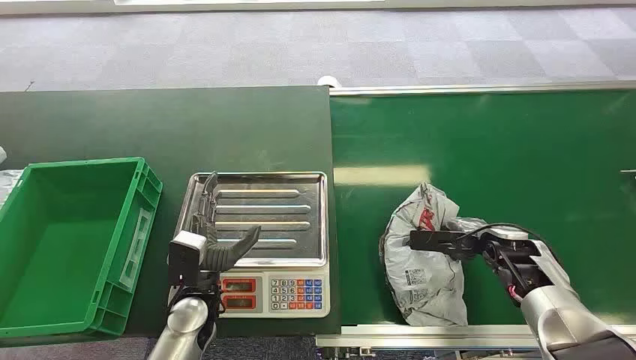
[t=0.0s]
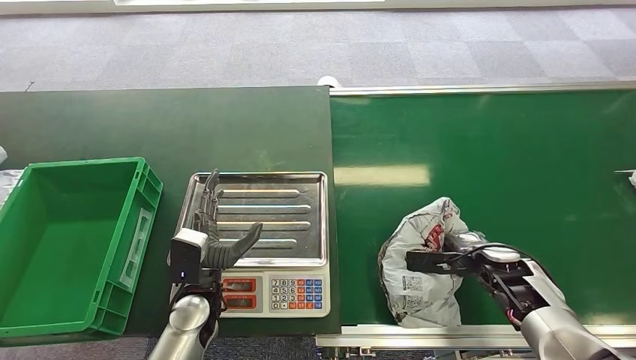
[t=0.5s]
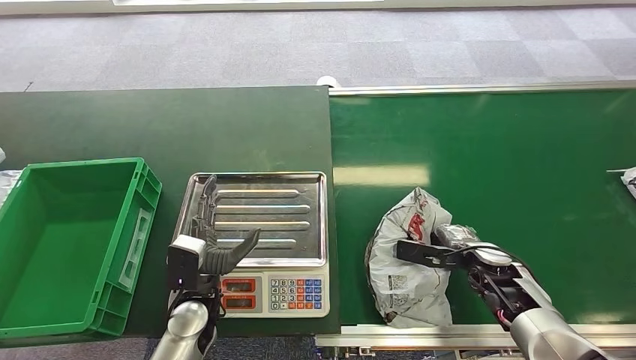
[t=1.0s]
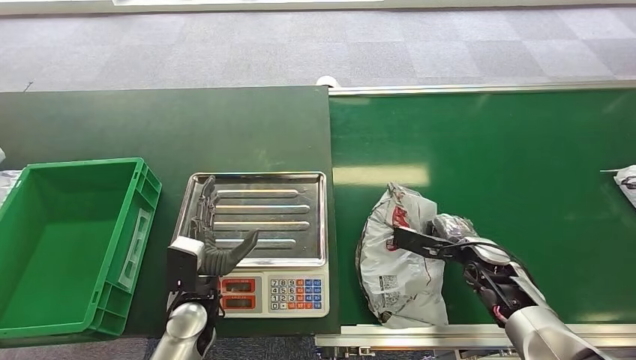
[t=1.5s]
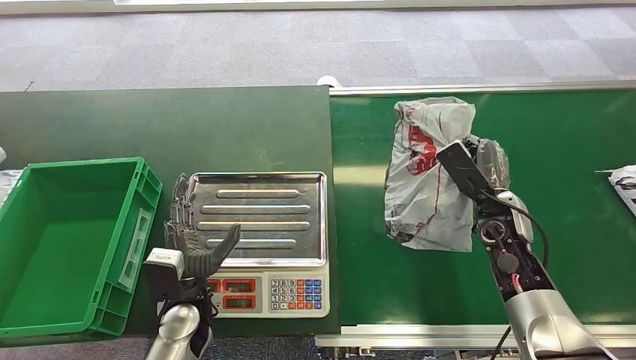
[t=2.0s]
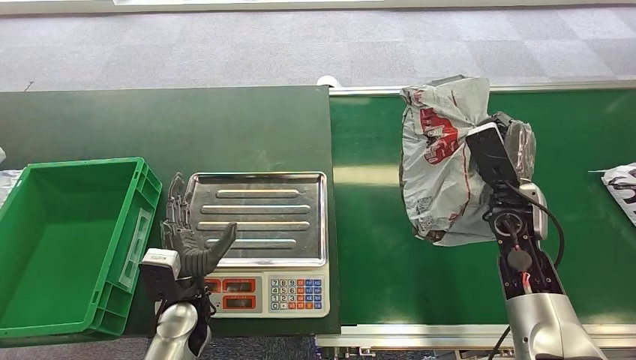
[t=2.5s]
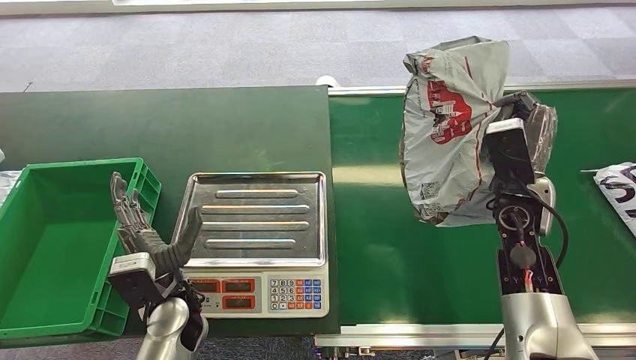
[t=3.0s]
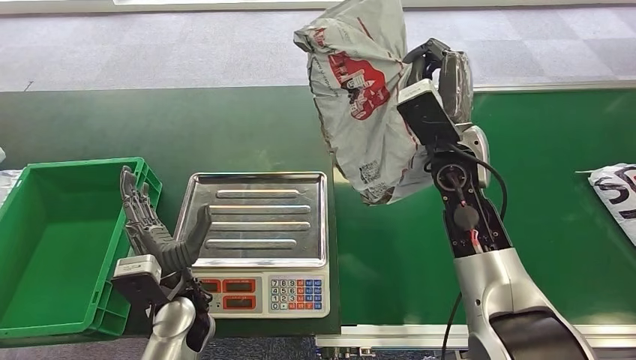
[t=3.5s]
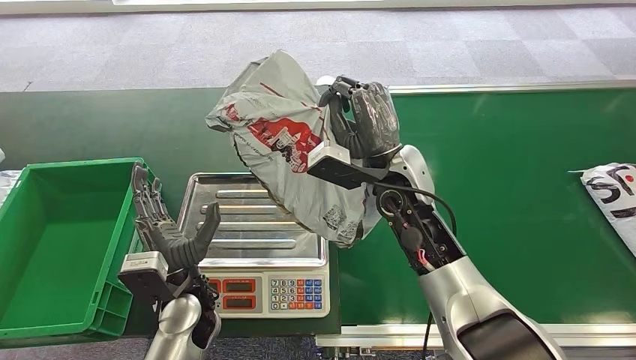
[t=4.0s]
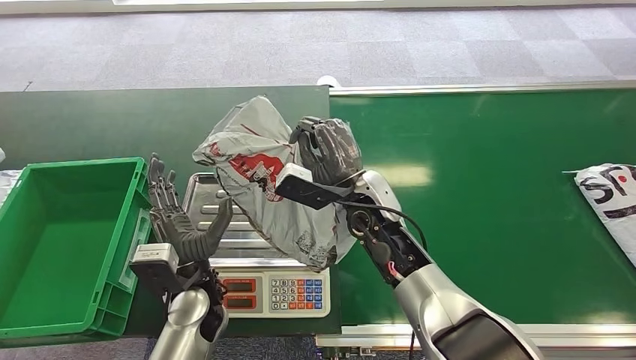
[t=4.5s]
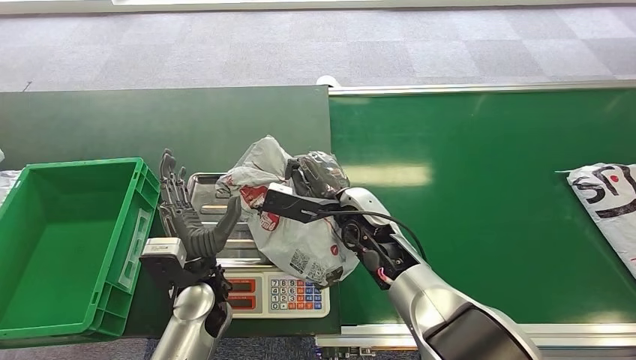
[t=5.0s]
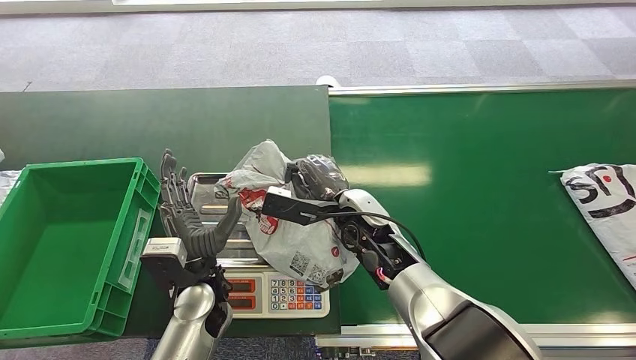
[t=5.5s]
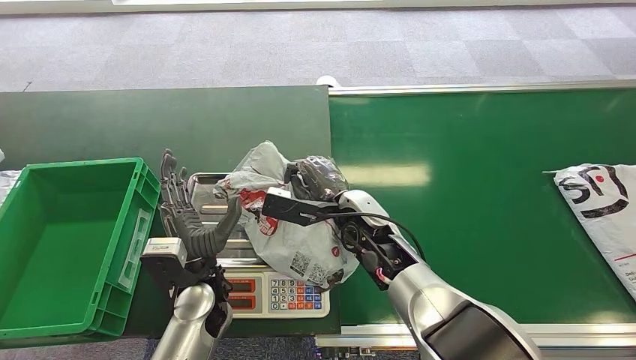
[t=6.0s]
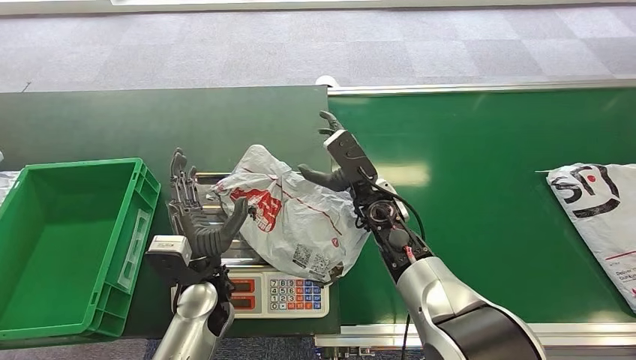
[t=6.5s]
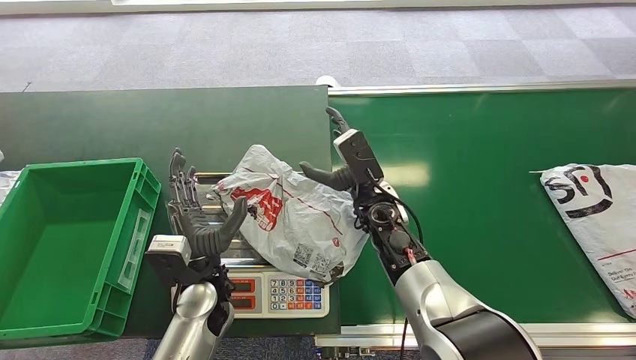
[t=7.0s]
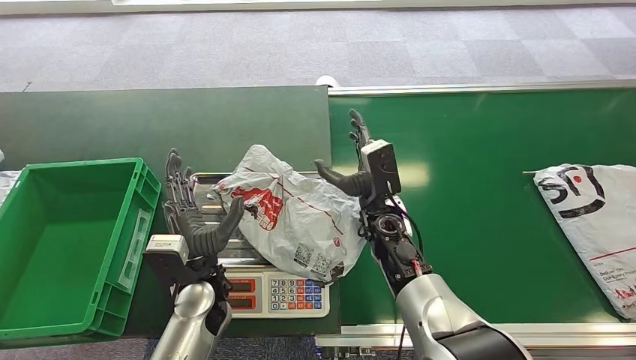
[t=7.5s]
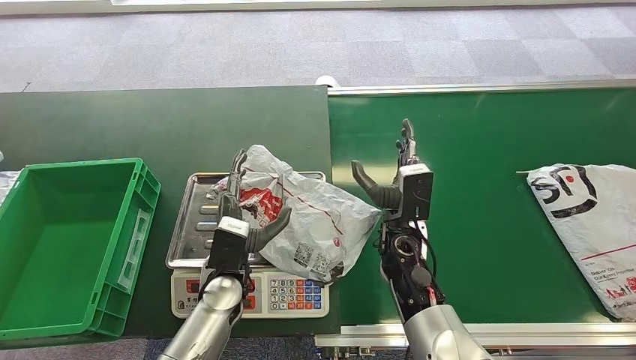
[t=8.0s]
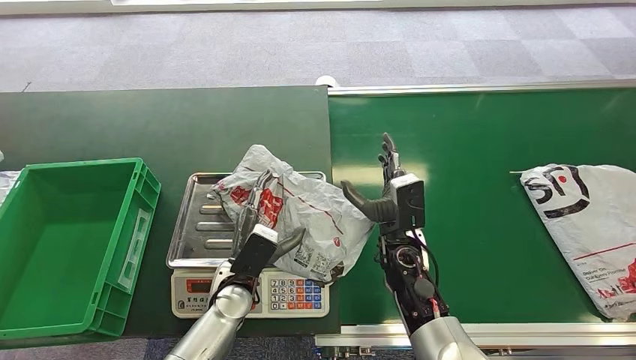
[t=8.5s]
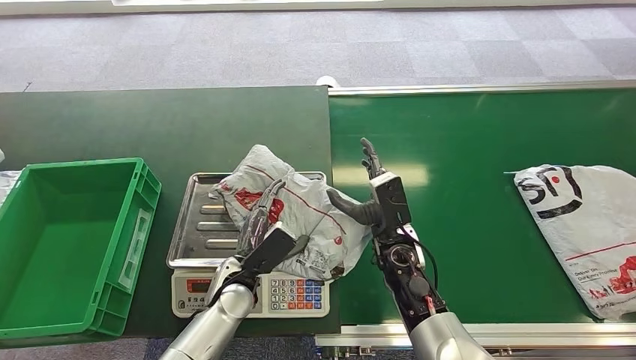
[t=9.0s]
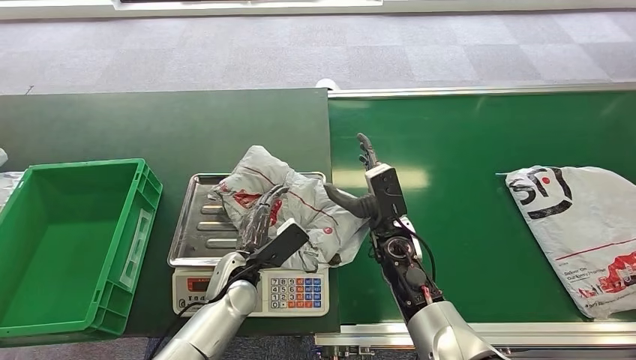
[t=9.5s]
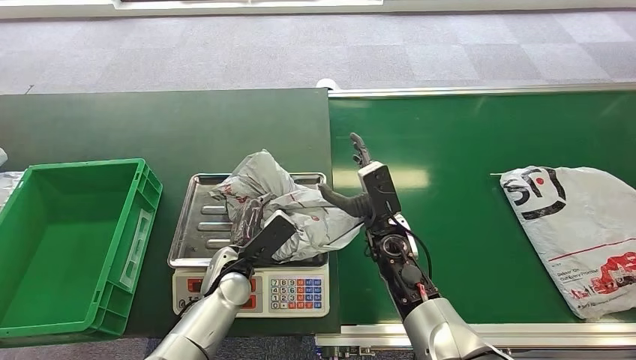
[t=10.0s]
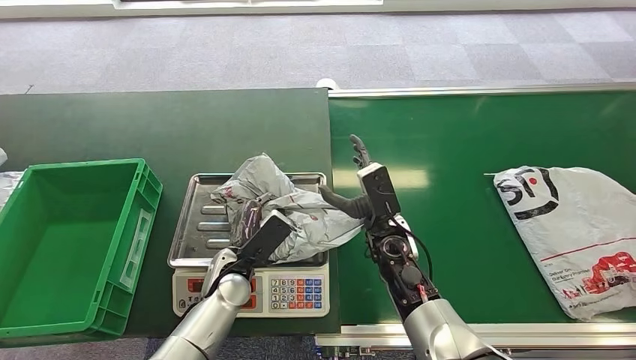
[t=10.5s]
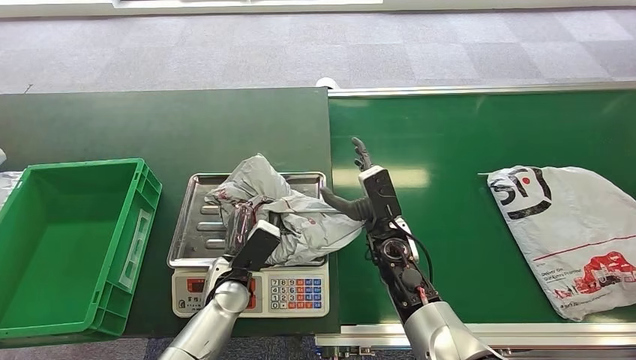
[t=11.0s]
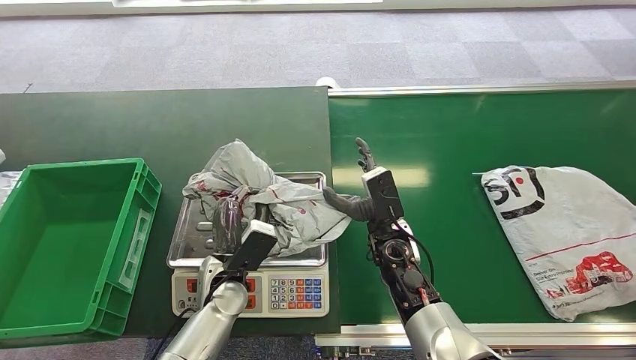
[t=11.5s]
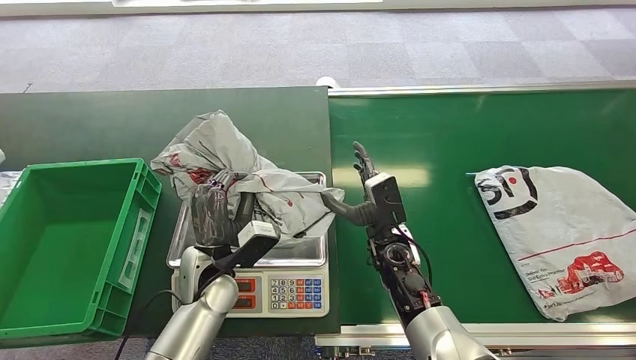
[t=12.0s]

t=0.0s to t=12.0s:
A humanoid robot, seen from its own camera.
Step, t=0.0s to t=2.0s: Pick up the package from the conveyor belt.
Step, t=4.5s to t=6.5s: Place the package onto the inbound machine.
t=6.0s to t=8.0s: The right hand changes place by roughly 5 cm.

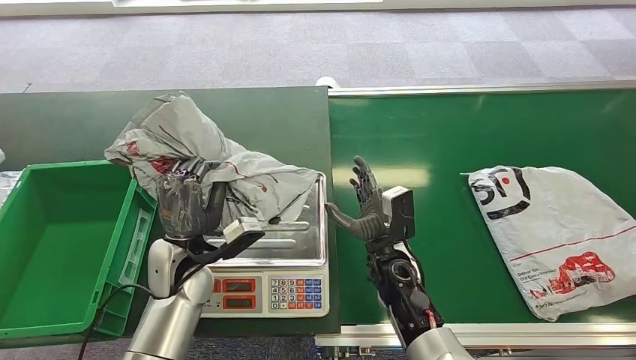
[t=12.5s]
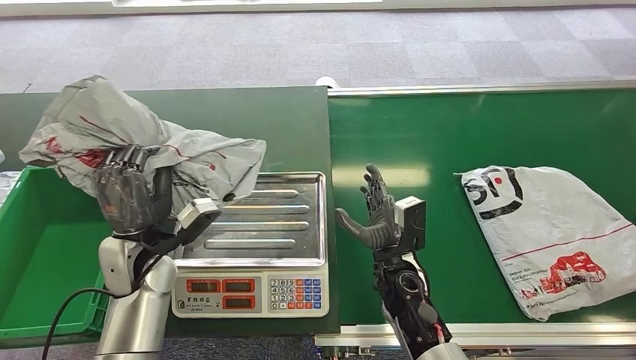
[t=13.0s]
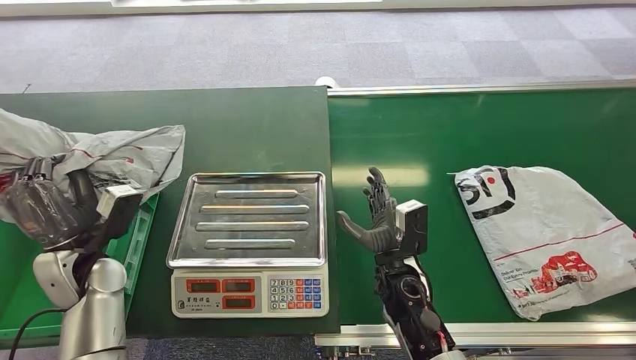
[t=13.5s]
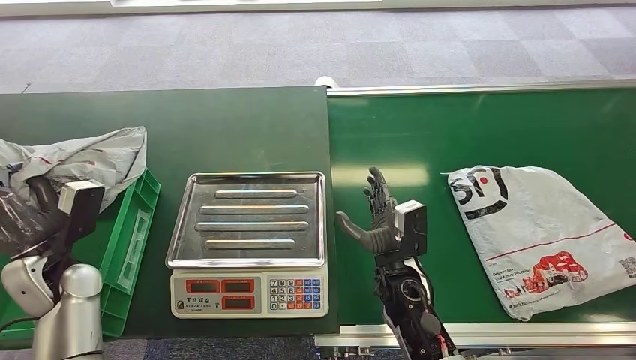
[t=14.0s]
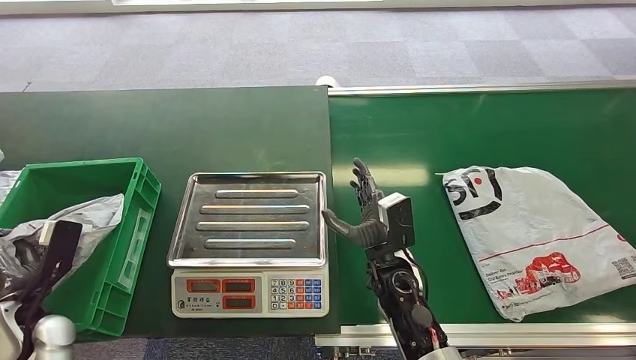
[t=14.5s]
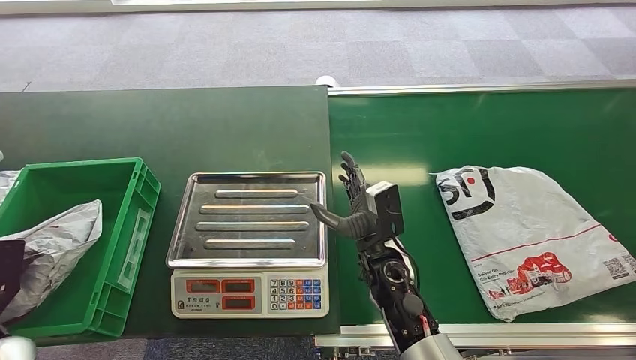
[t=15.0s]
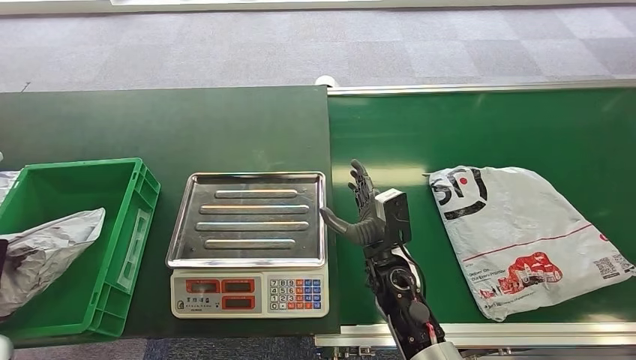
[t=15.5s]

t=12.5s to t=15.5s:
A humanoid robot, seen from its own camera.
Step, t=14.0s to t=15.5s: Place the package into the parcel locker.
t=14.0s to t=15.5s: The left hand moves to the left and backward, some 15 cm.
